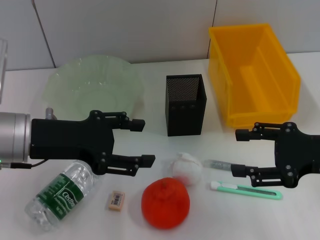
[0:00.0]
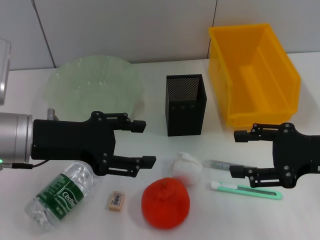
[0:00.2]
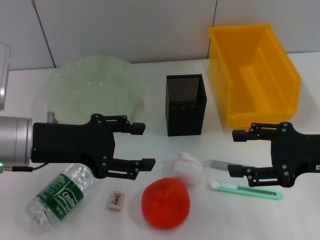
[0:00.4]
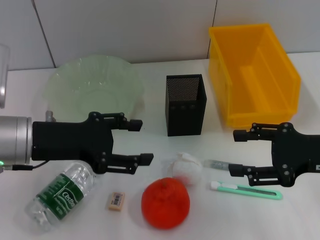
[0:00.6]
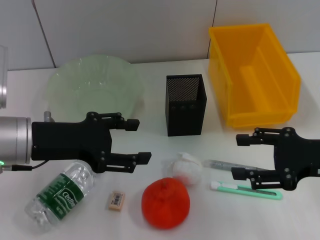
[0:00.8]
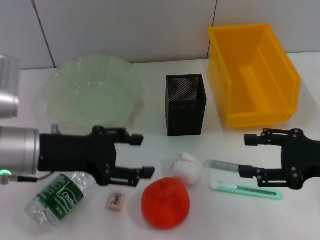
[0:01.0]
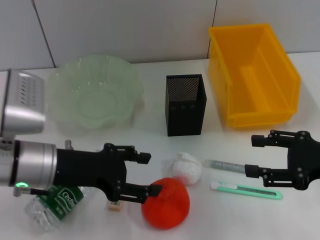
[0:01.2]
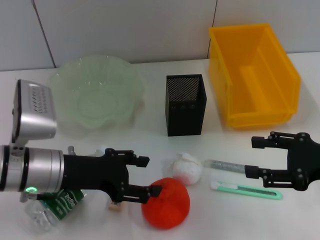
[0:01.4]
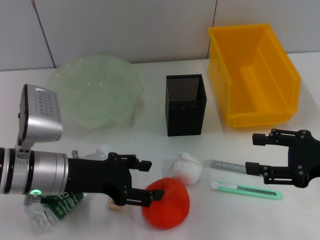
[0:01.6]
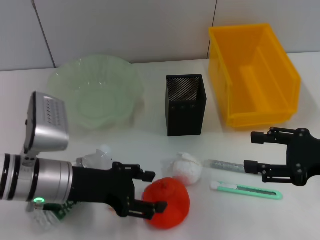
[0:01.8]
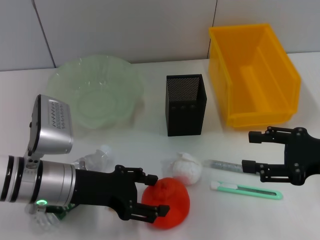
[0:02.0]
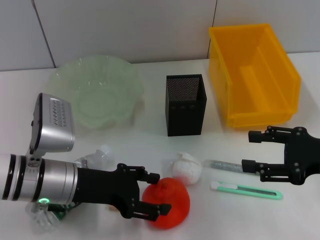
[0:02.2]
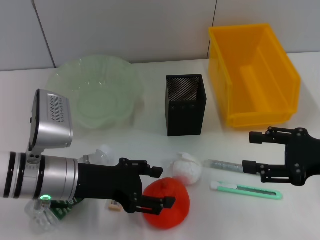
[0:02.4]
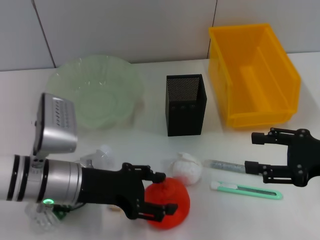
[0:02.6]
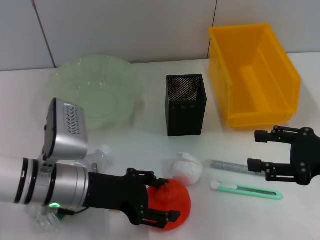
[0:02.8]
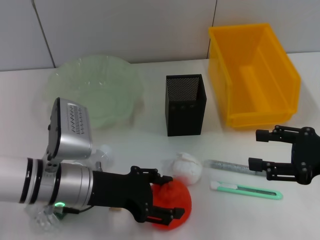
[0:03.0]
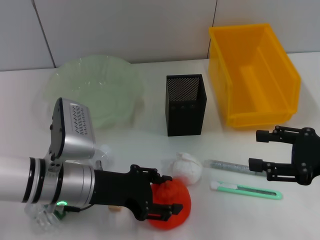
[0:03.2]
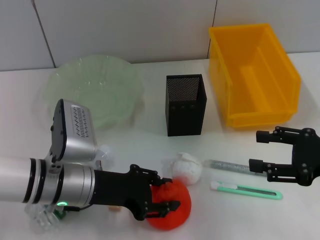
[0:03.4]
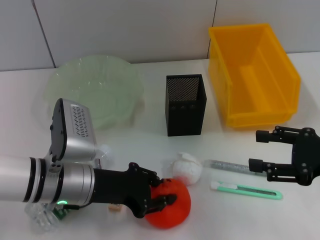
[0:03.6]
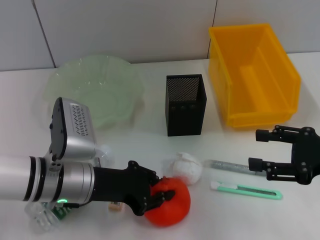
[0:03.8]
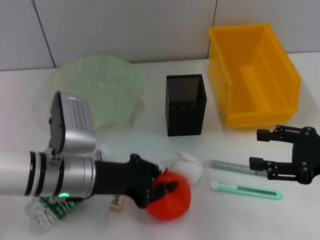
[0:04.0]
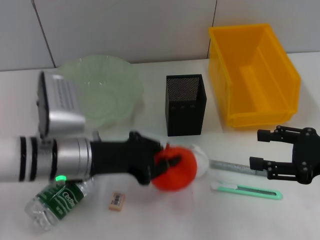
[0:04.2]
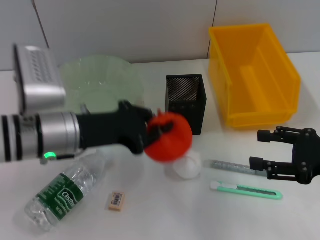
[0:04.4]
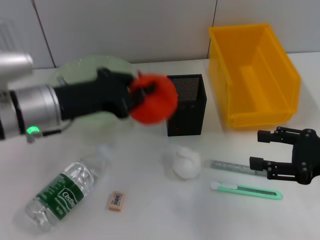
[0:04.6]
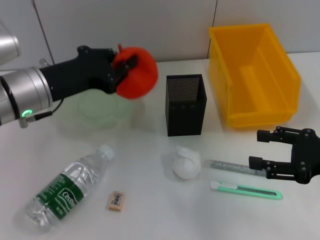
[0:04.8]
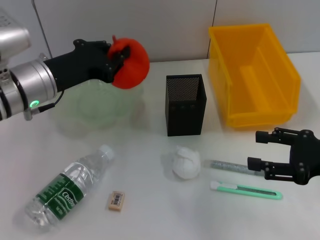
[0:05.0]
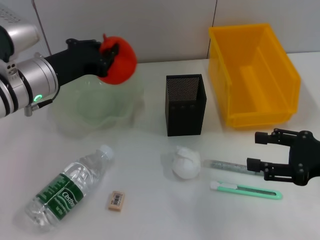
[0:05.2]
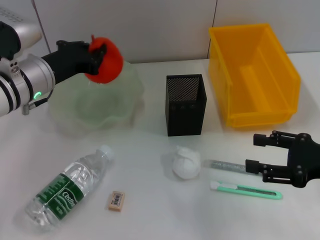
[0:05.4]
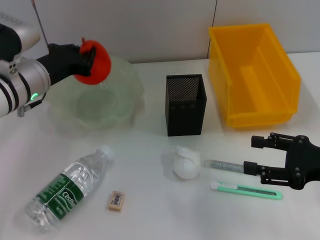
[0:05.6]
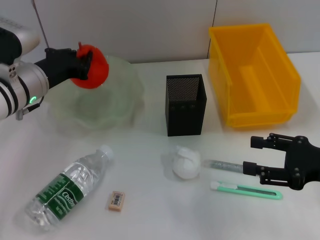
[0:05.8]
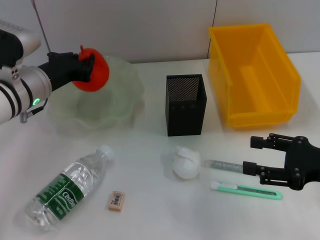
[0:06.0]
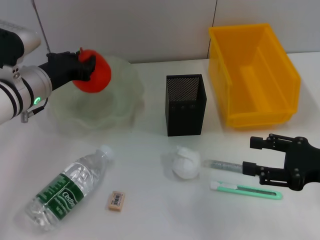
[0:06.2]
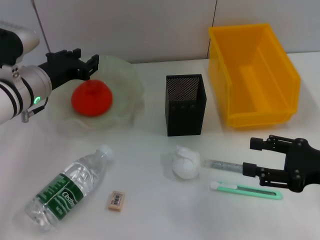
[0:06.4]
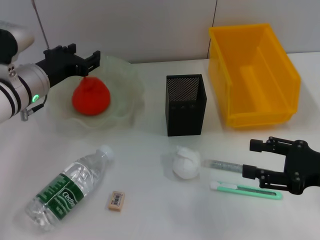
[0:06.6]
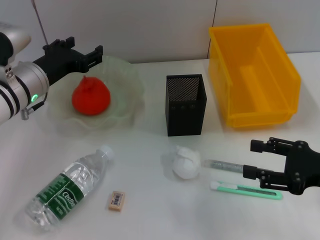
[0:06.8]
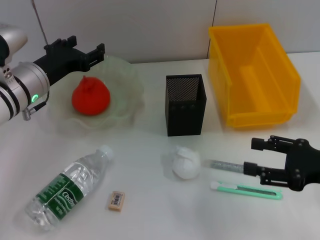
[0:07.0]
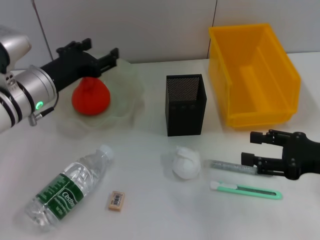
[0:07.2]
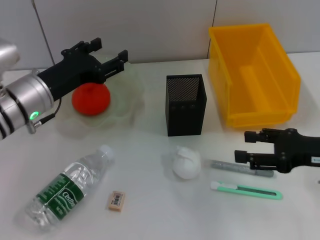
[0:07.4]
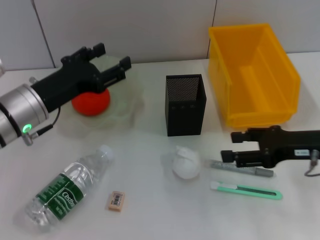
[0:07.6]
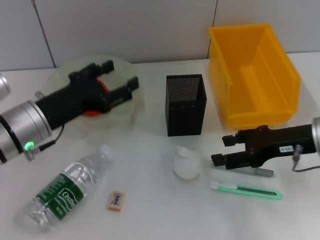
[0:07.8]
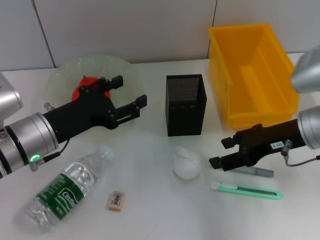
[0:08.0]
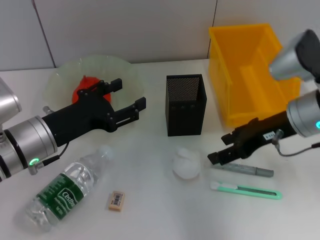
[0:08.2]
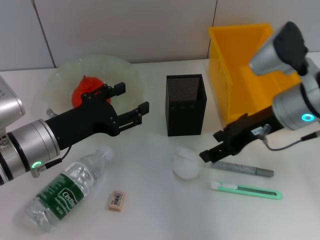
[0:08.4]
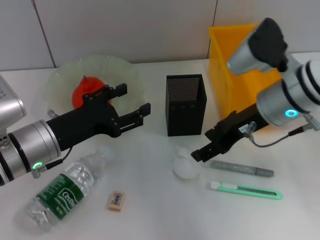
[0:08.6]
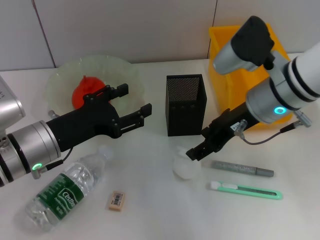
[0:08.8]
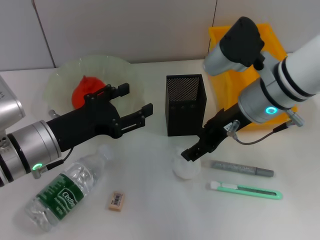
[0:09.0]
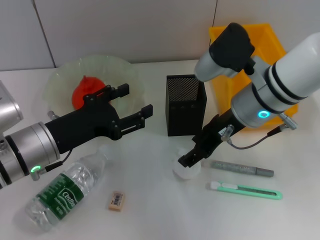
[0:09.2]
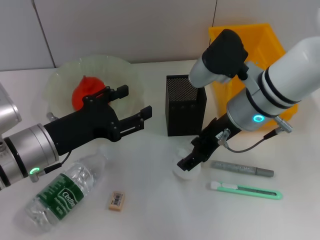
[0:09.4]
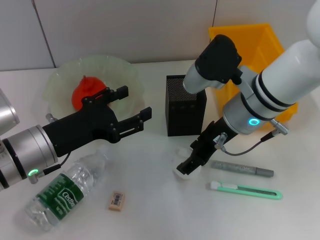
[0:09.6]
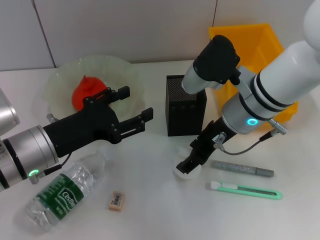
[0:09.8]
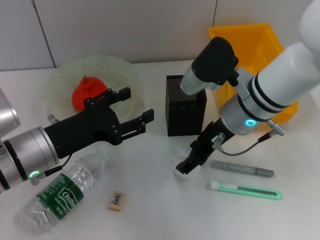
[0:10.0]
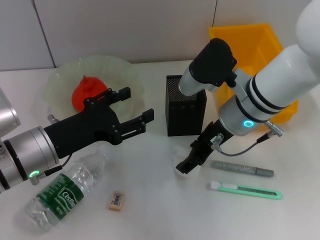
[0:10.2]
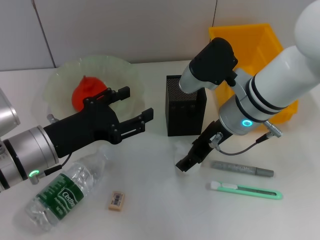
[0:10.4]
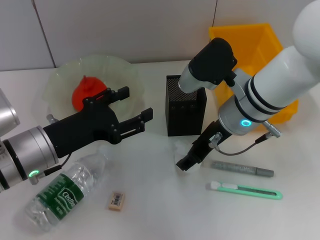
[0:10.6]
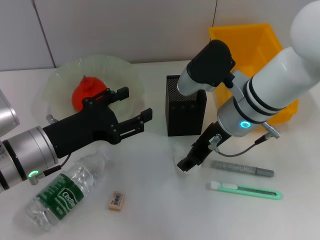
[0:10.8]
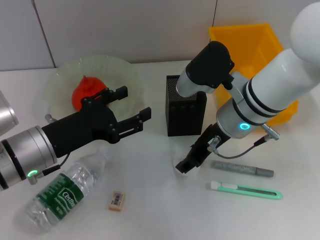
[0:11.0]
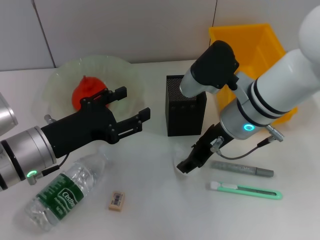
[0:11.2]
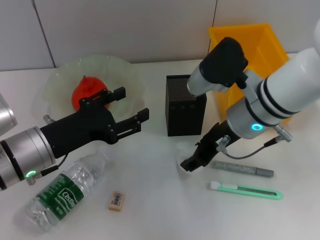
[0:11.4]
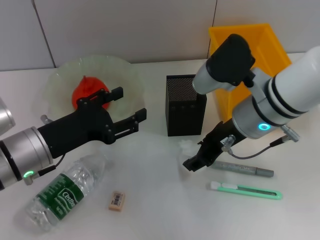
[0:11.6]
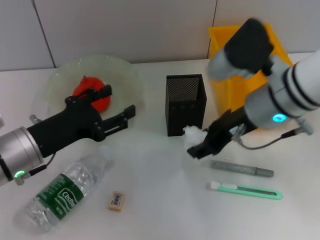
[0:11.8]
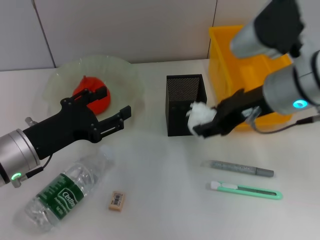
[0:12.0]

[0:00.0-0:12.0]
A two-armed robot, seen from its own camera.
Step, 0:00.0 to 0:03.8: Grab the orange with the left hand.
Step, 0:04.0 to 0:06.6: Place the orange into the fruit bowl with the left hand.
Step, 0:06.8 to 0:11.0: Grab the paper ball with the right hand.
0:00.0 to 0:01.6: The left gripper travels downward by roughly 5 cm.
0:01.6 to 0:03.0: The grippers stay close to where they were, moving slightly.
0:03.0 to 0:04.4: The left gripper goes roughly 5 cm upward, and closes.
0:04.4 to 0:06.0: The left gripper is displaced forward by roughly 10 cm.
0:06.0 to 0:07.6: The right gripper is displaced forward by approximately 5 cm, while the left gripper shifts approximately 5 cm backward, and opens.
0:07.6 to 0:09.0: The right gripper shifts some 15 cm to the left, forward and upward.
0:09.0 to 0:10.4: The grippers make only small movements.
0:10.4 to 0:12.0: The right gripper is displaced upward by approximately 5 cm.

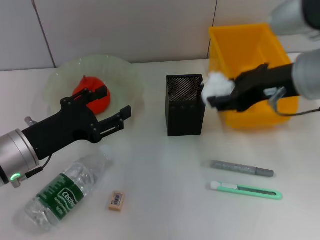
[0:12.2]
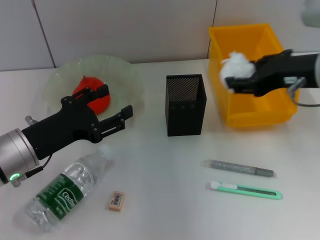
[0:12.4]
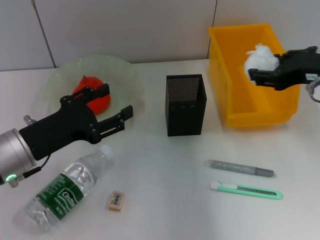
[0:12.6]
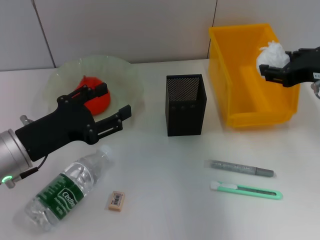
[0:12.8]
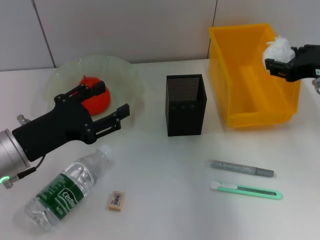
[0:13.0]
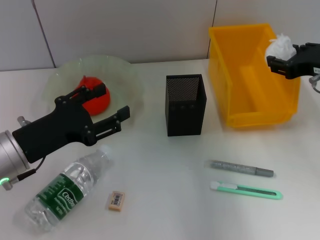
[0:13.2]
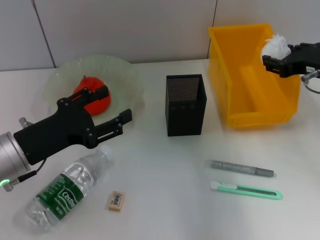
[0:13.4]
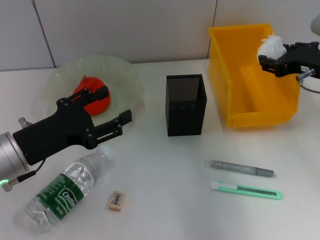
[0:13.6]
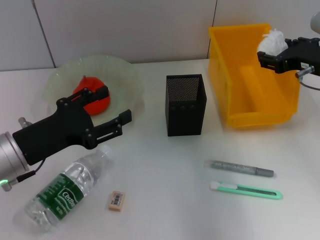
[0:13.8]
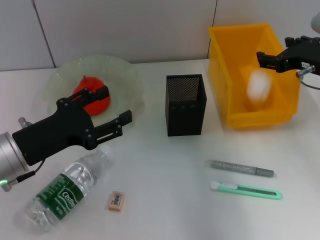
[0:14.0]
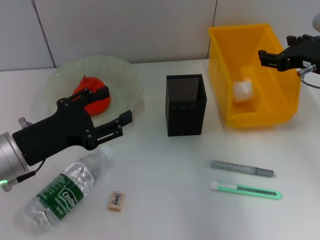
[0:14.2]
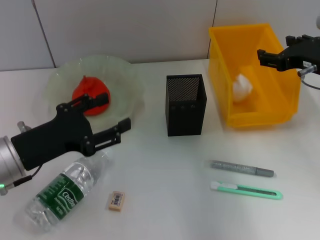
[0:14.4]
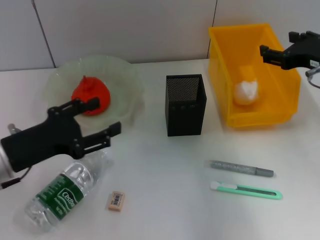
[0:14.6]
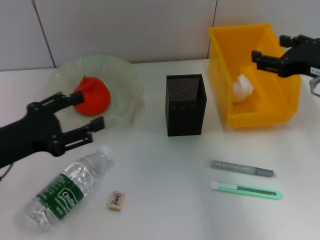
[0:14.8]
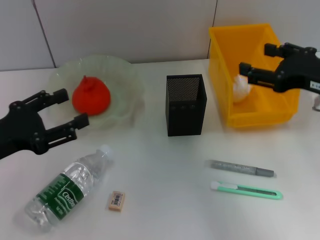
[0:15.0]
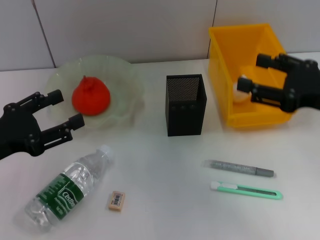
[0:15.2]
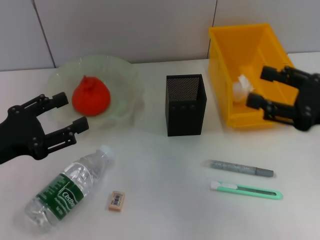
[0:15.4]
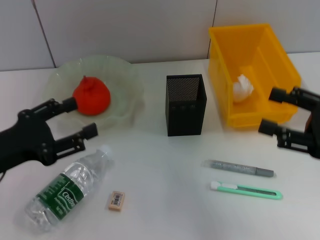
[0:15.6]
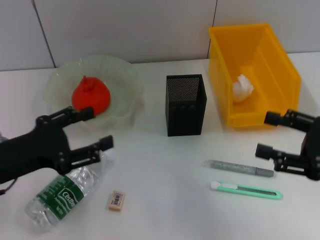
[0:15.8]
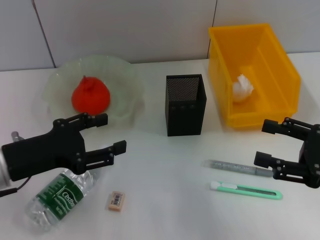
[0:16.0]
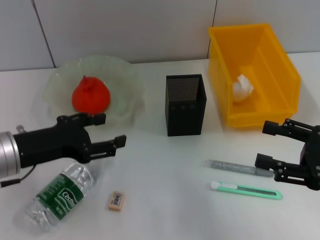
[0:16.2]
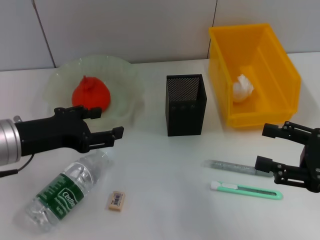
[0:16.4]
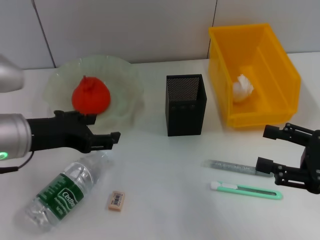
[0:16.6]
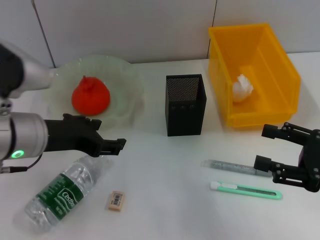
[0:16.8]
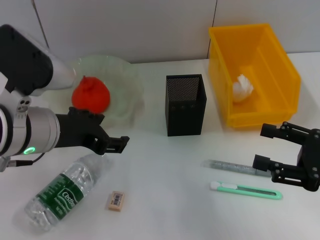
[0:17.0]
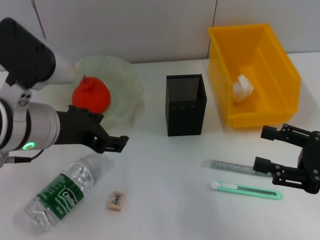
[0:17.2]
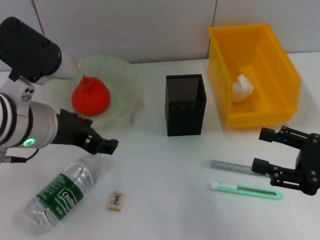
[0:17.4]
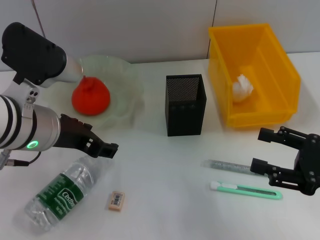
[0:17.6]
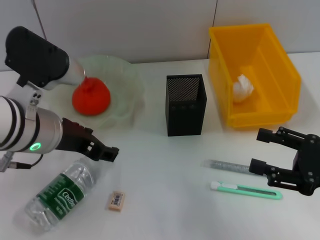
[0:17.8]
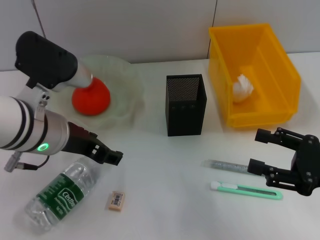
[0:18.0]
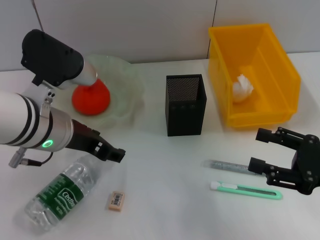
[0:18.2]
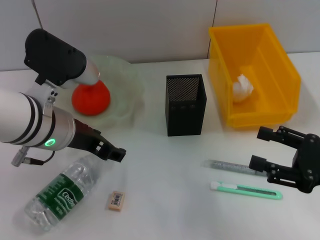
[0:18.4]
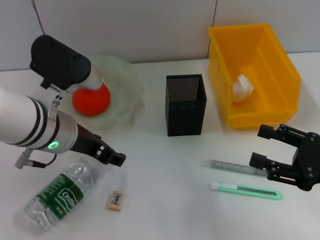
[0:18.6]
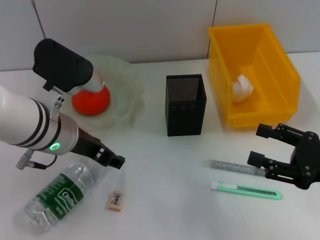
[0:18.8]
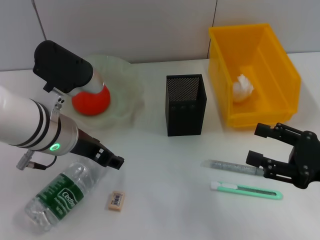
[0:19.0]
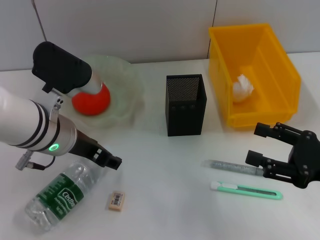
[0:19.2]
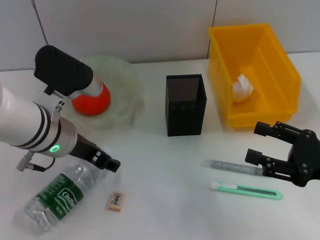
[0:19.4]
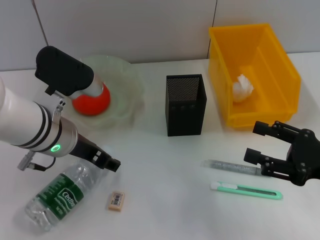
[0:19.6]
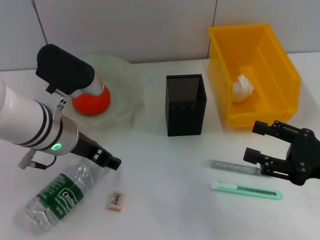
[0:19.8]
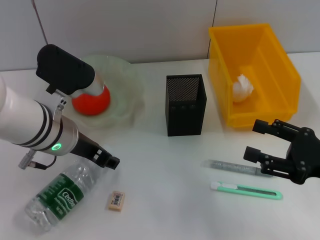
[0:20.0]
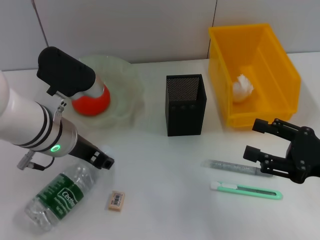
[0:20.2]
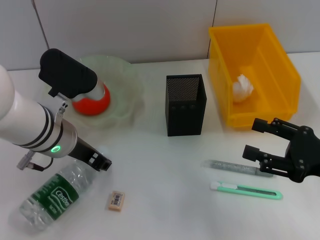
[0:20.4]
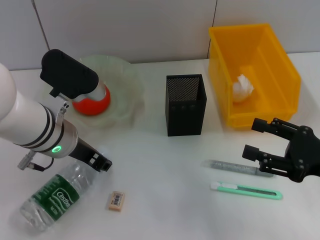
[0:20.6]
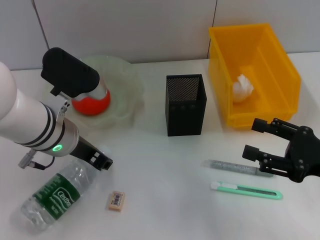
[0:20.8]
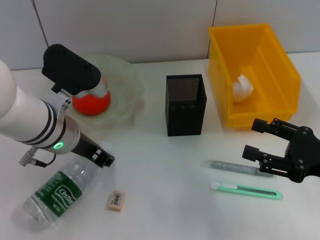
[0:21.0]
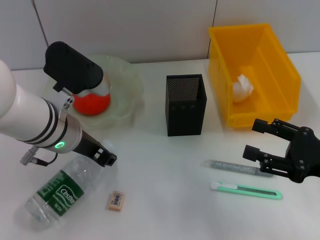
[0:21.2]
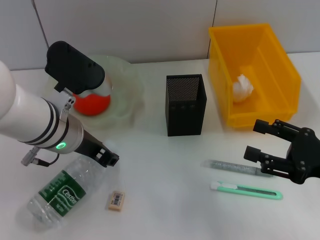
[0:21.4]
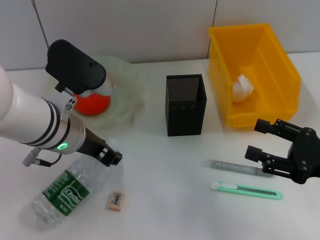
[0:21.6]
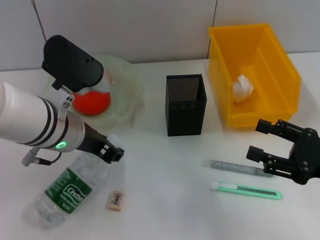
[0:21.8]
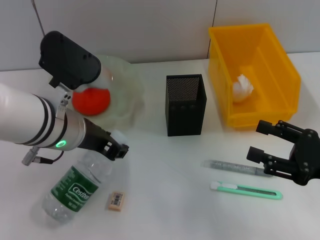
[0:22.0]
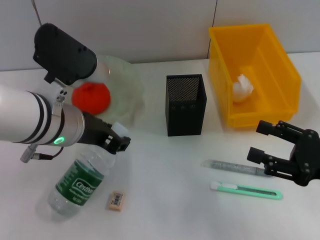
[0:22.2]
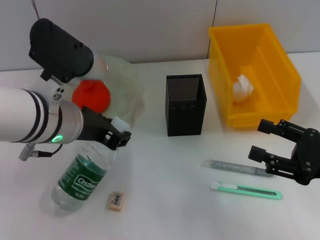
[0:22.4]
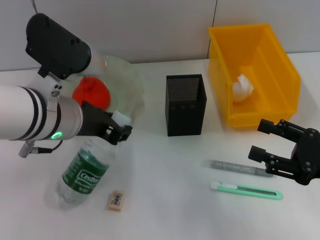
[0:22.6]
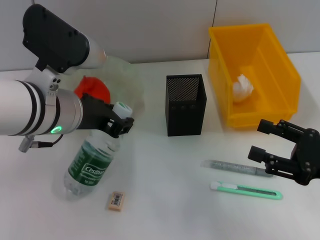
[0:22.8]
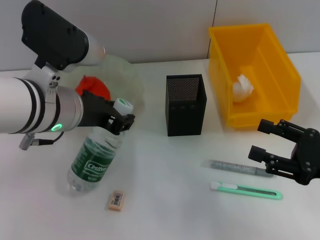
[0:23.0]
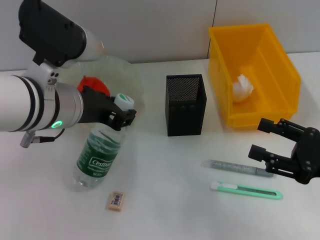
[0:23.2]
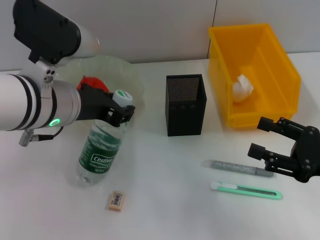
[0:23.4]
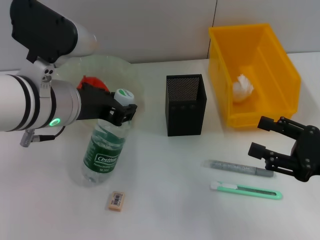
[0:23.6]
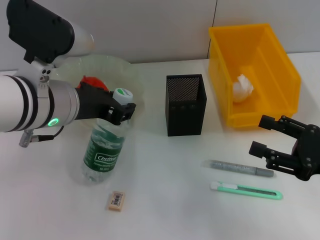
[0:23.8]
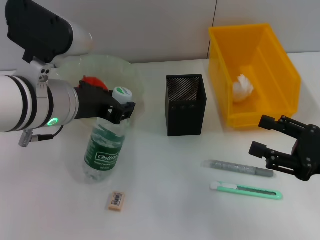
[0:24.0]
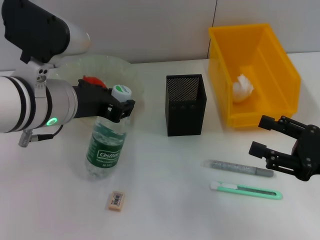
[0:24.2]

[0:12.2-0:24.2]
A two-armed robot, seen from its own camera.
Step, 0:12.2 to 0:14.2: Place the paper ball into the trash can with the right hand.
Step, 0:14.4 to 0:20.6: Grab the water bottle with the left hand.
0:12.2 to 0:13.8: The right gripper shifts roughly 10 cm to the right, downward and forward.
0:13.8 to 0:15.2: The right gripper shifts roughly 10 cm backward, while the left gripper heads to the left, covering roughly 5 cm.
0:15.2 to 0:16.6: The right gripper shifts about 10 cm downward and backward. The left gripper goes about 5 cm to the right.
0:16.6 to 0:18.2: The left gripper goes about 5 cm to the right.
0:18.2 to 0:19.8: The grippers move only a little.
0:19.8 to 0:21.2: The left gripper closes.
0:21.2 to 0:22.6: The grippers move only a little.
0:22.6 to 0:24.2: There are only small adjustments of the grippers.
